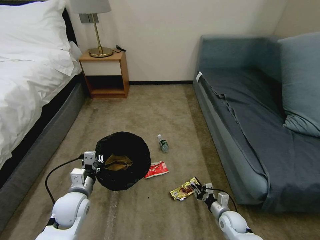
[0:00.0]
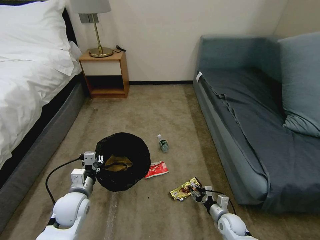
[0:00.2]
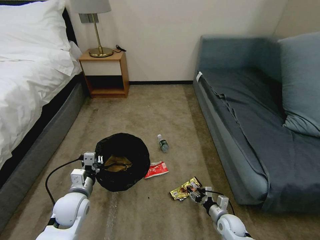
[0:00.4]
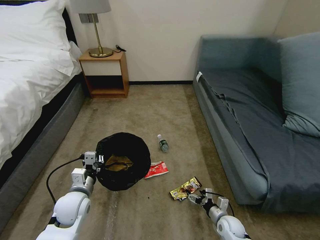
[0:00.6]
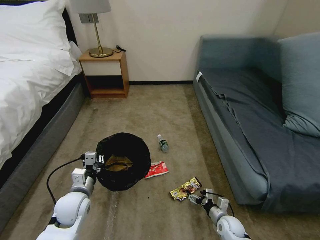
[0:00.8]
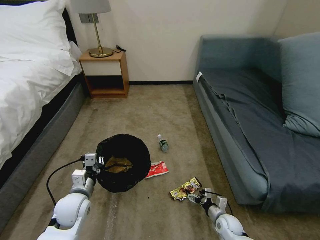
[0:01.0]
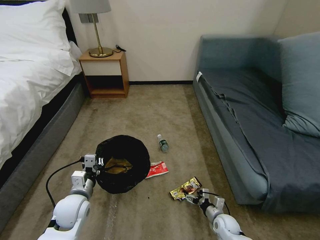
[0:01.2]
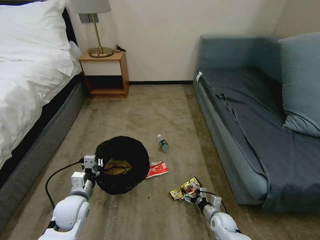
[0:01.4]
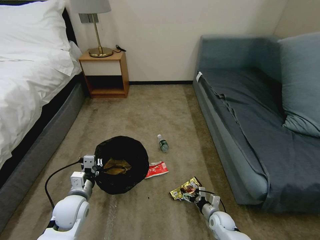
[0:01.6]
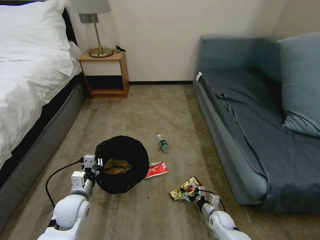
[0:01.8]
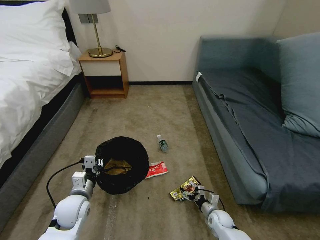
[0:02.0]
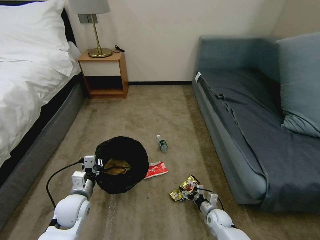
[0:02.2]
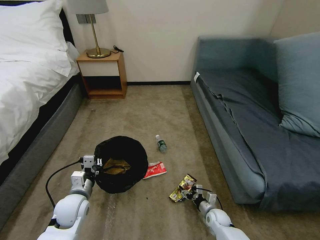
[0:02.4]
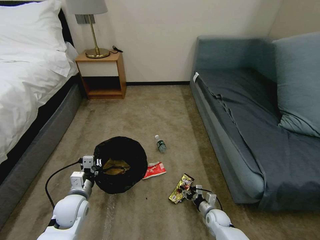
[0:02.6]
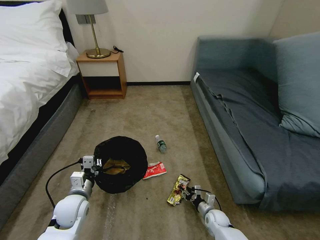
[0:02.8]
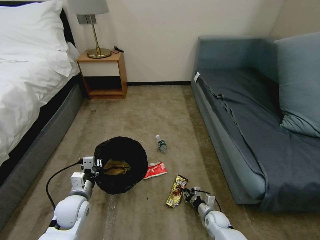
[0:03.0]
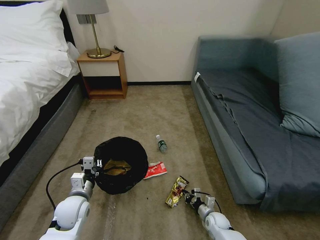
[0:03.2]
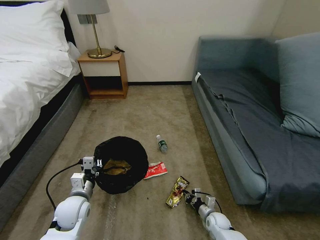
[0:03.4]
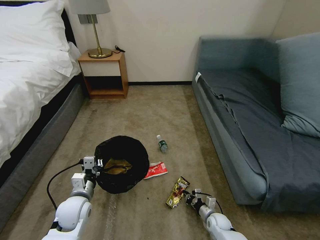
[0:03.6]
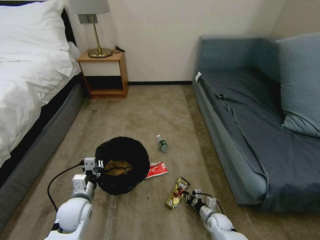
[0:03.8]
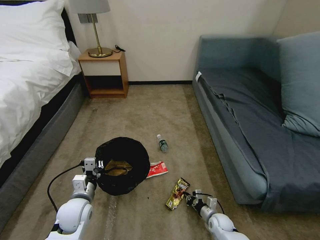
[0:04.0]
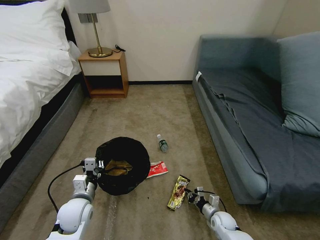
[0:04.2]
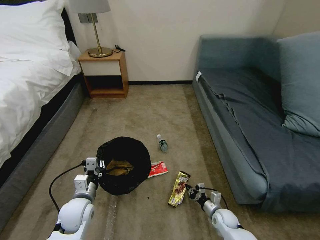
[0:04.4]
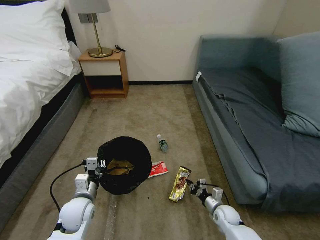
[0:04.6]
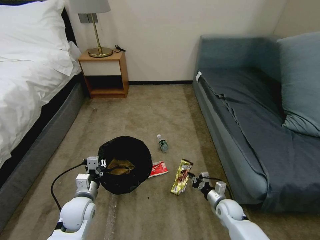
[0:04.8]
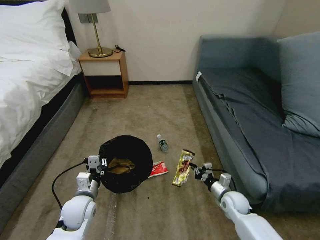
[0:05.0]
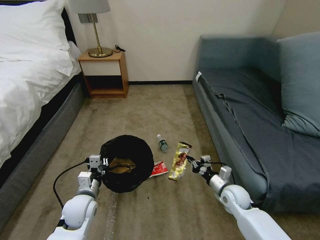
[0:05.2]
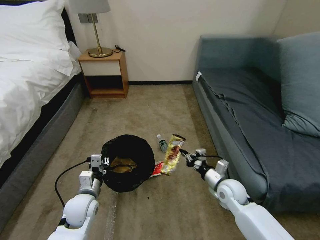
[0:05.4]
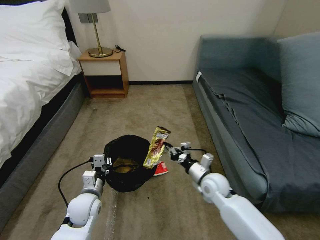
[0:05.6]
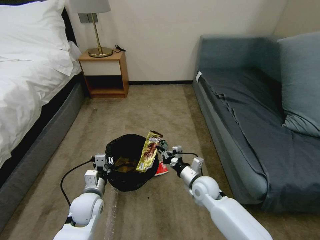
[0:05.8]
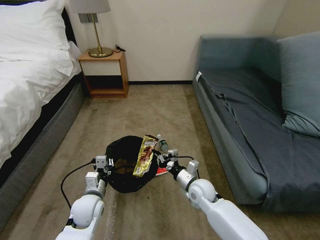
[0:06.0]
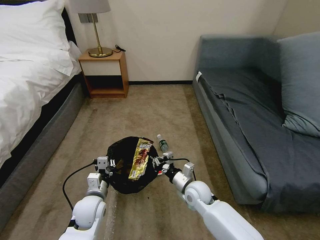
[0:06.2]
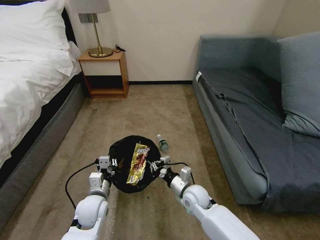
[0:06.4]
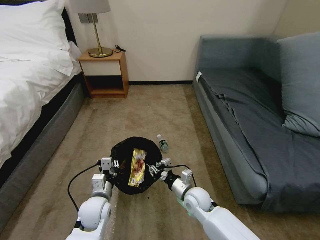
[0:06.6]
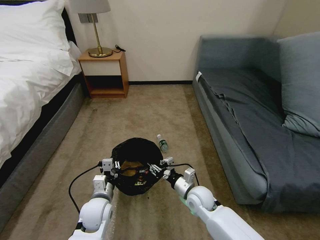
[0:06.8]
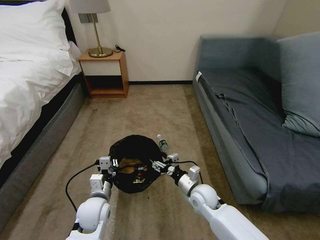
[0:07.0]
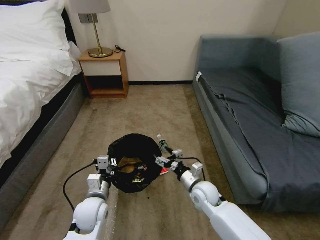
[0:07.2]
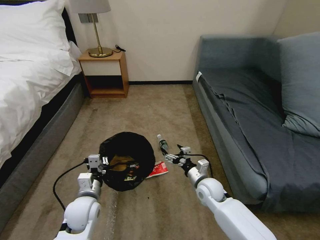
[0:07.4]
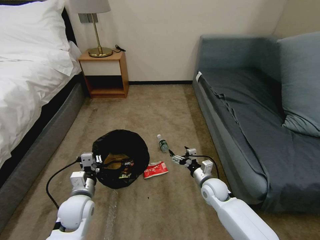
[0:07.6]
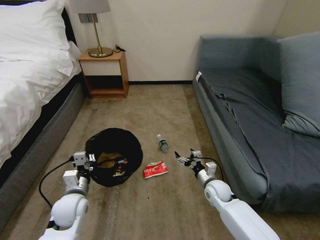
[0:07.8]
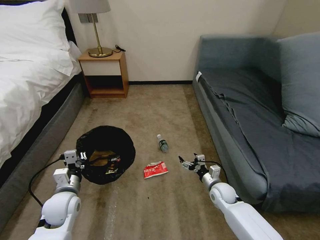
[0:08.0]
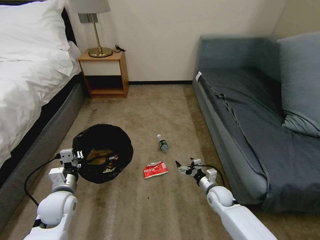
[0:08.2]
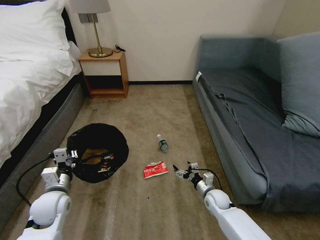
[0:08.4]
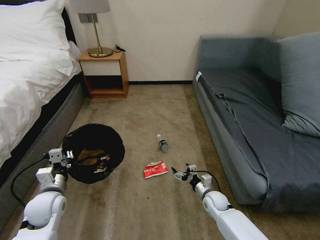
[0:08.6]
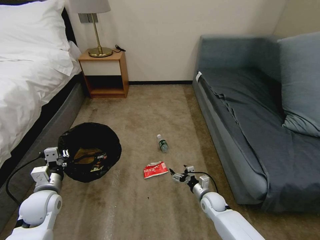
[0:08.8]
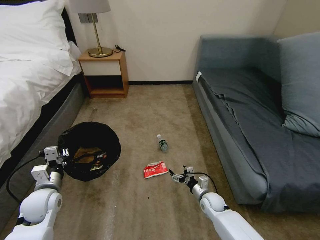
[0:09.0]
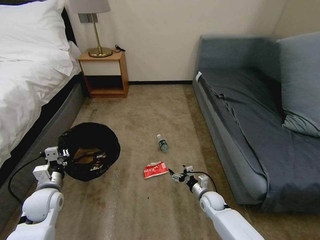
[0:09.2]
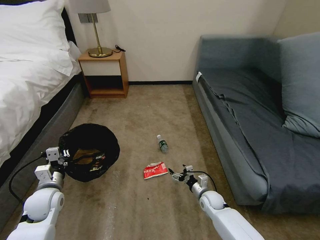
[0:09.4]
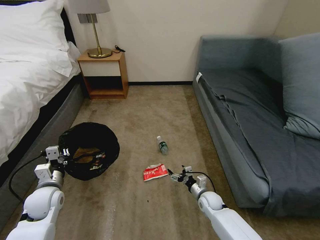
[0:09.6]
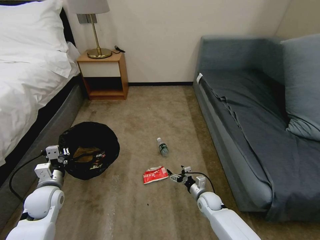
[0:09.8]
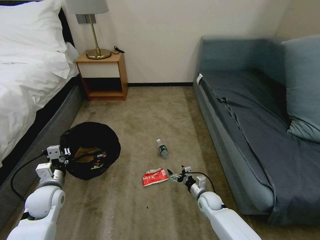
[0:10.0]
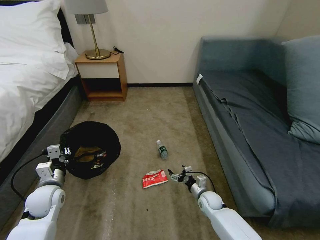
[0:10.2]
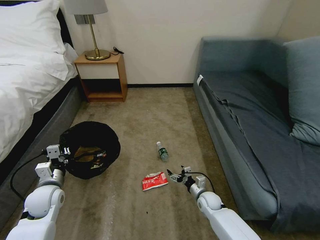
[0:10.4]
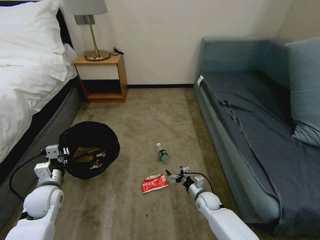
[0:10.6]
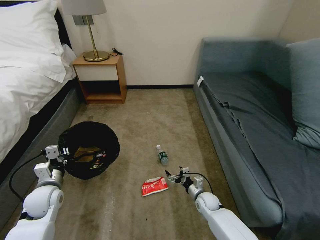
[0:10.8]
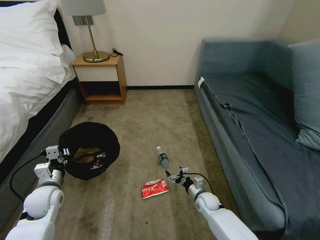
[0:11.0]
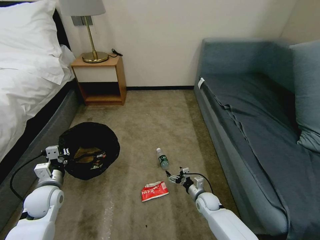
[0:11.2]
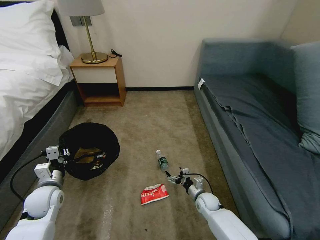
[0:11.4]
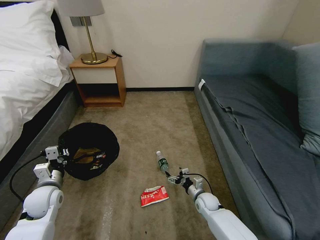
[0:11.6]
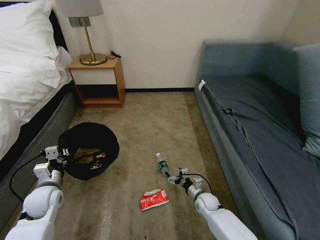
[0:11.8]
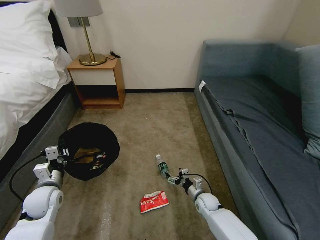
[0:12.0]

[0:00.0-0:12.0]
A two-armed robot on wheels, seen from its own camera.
Task of the whole recording: Pick up the trash bin, then pick up the garbage on the floor and place it into the trash bin.
0:00.0 to 0:01.6: The right gripper changes place by roughly 5 cm, and opens up.
0:01.6 to 0:03.0: The right gripper closes up.
0:03.0 to 0:04.4: There are only small adjustments of the grippers.
0:04.4 to 0:06.0: The right gripper goes approximately 20 cm upward and to the left.
0:06.0 to 0:07.6: The right gripper moves to the right, about 5 cm, and opens.
0:07.6 to 0:09.0: The right gripper heads downward, covering approximately 10 cm; the left gripper travels to the left by approximately 10 cm.
0:09.0 to 0:10.4: There are only small adjustments of the grippers.
0:10.4 to 0:12.0: Neither gripper changes place.

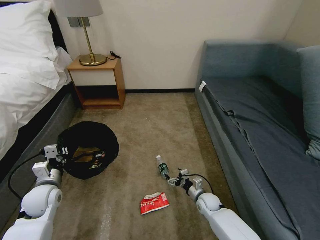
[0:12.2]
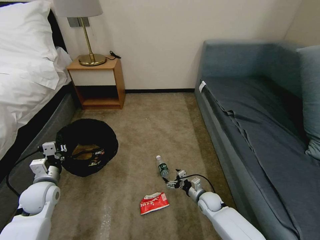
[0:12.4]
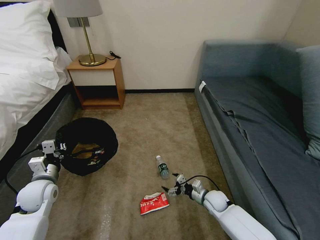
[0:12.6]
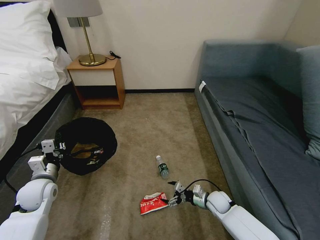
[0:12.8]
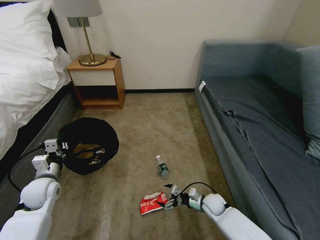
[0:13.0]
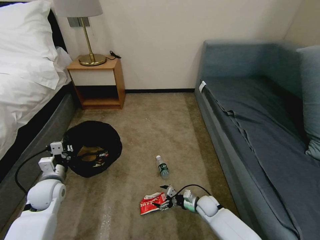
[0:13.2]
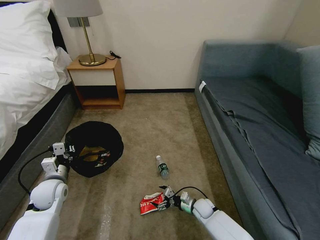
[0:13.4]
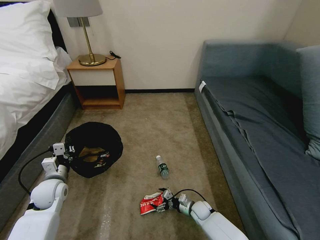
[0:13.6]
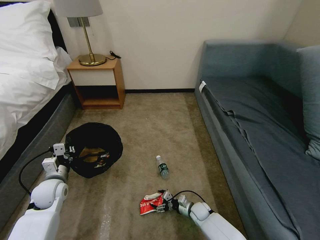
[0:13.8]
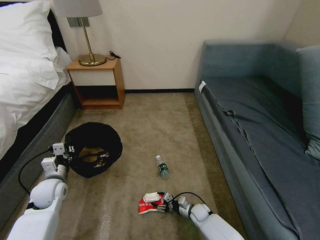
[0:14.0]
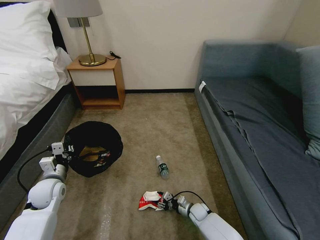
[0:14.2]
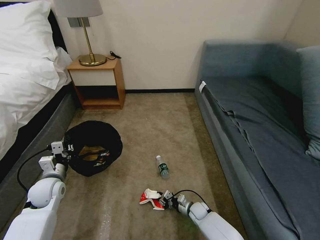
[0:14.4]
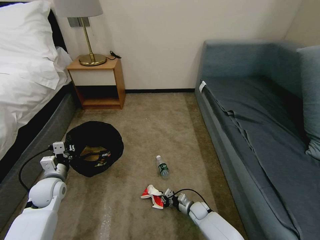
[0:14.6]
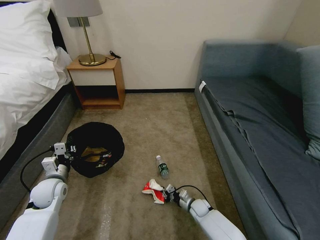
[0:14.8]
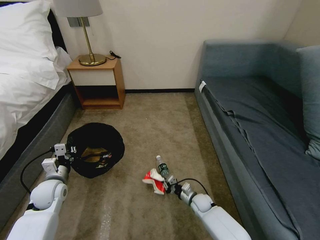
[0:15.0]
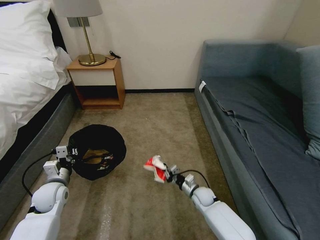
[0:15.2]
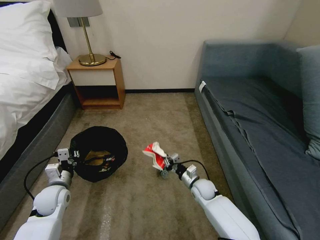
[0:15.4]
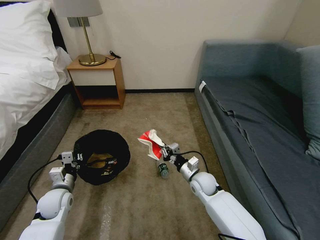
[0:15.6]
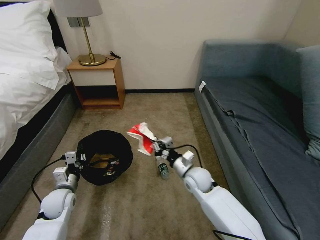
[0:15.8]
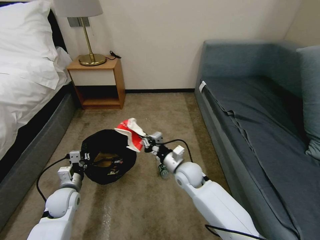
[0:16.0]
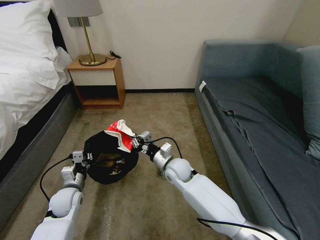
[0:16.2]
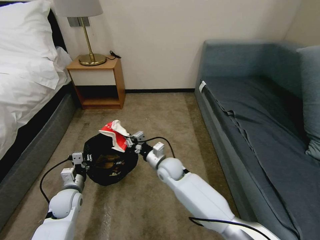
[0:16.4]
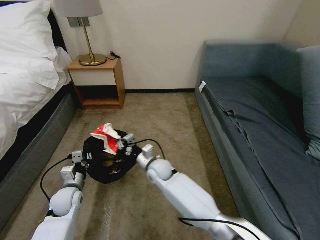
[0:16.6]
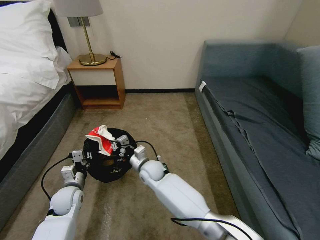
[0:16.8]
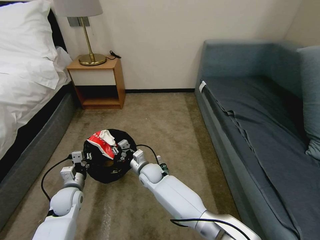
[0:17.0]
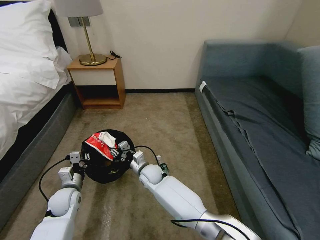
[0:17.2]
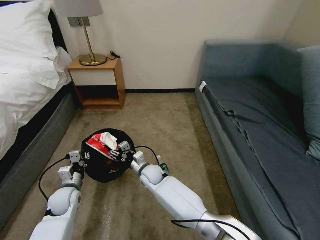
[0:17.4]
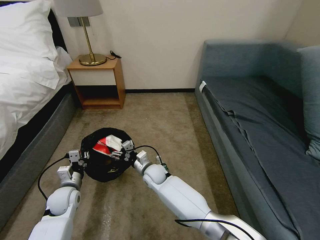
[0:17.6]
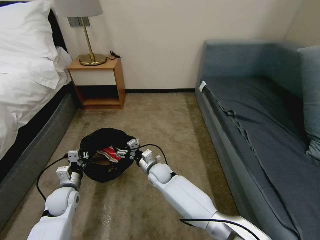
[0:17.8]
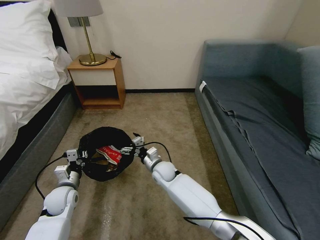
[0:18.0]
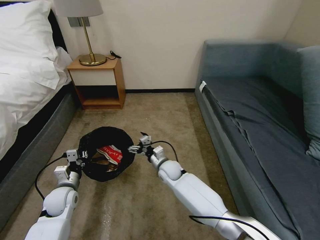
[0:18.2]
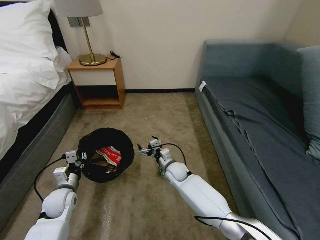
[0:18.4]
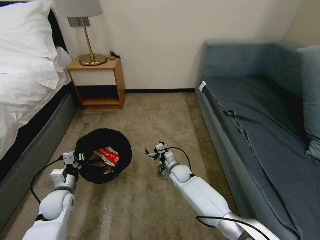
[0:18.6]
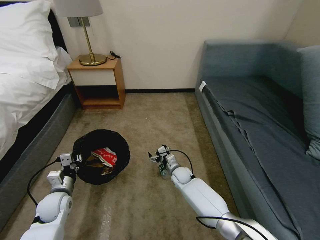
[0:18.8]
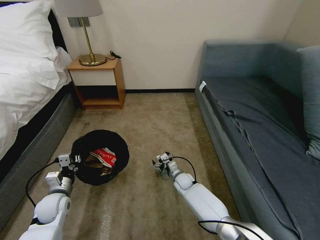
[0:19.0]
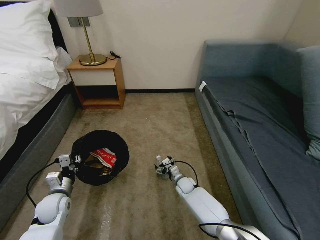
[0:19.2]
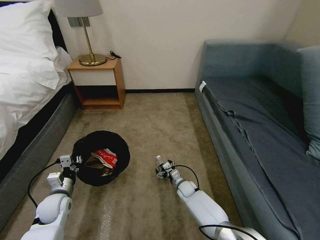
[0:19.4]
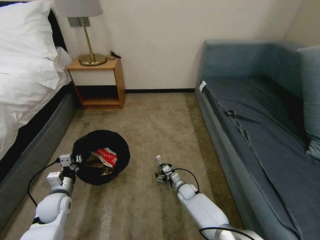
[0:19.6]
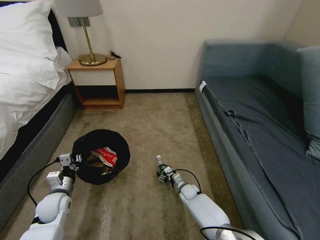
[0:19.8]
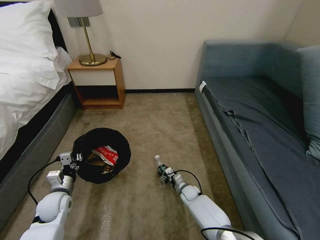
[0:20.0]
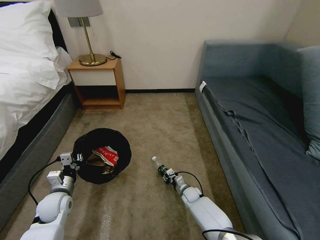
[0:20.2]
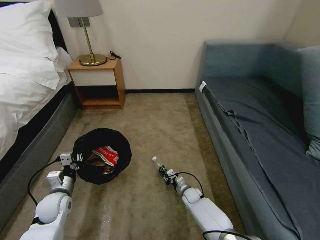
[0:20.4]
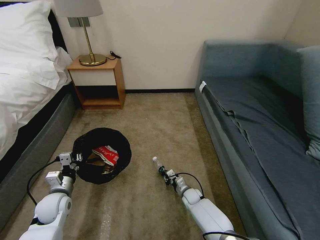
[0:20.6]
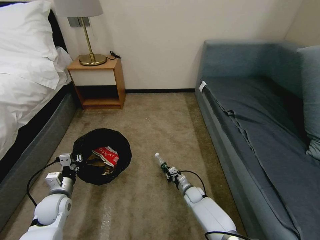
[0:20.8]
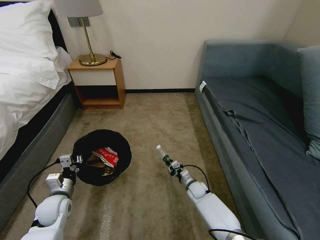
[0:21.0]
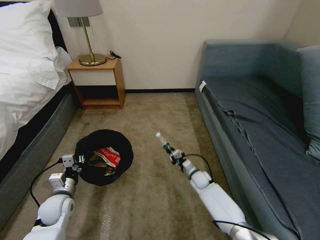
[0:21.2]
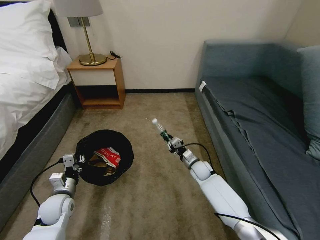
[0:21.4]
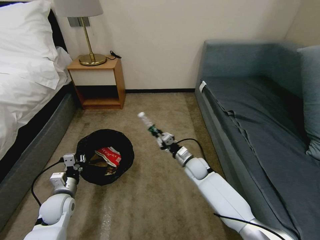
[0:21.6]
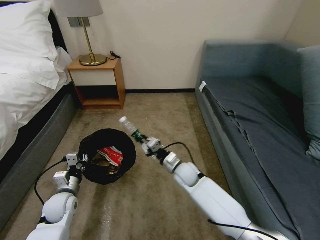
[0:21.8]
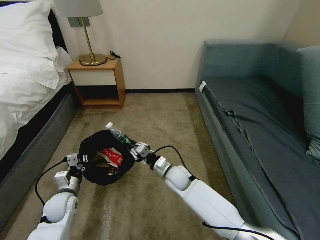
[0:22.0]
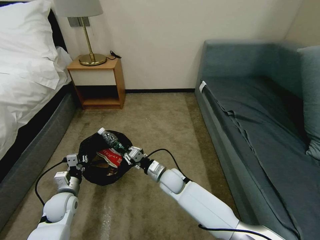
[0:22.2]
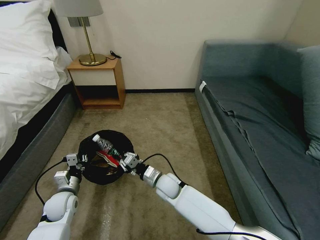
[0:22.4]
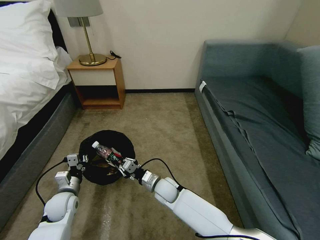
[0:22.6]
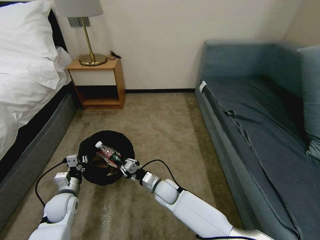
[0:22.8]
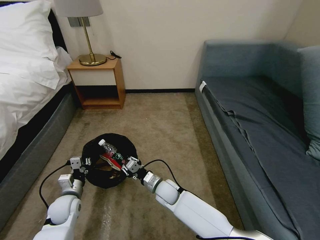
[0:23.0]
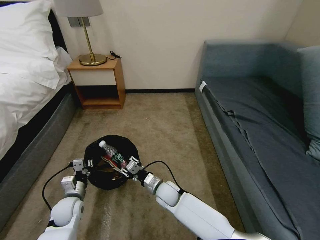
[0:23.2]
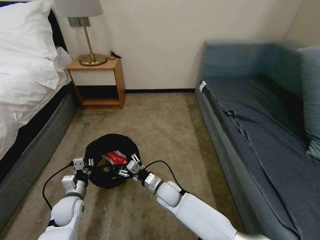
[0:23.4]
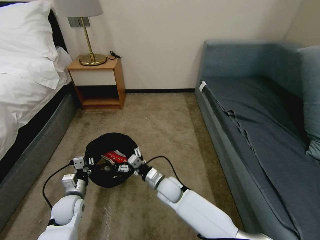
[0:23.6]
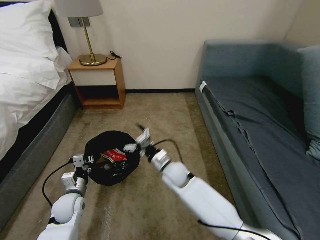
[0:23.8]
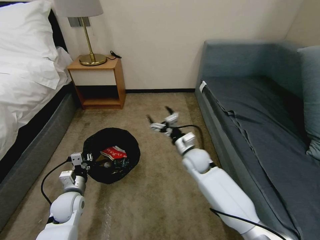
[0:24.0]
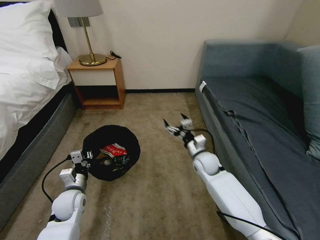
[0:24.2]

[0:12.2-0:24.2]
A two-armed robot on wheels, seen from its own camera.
Task of the whole recording: Pick up the trash bin, then pick up the garbage on the floor and place it into the trash bin.
0:12.2 to 0:13.8: The right gripper heads downward, covering roughly 5 cm.
0:13.8 to 0:15.2: The right gripper travels upward by roughly 10 cm, and closes its fingers.
0:15.2 to 0:16.6: The right gripper moves to the left and upward, about 25 cm. The left gripper changes place by roughly 5 cm.
0:16.6 to 0:18.2: The right gripper ends up about 5 cm from where it was, and opens its fingers.
0:18.2 to 0:19.8: The right gripper is displaced downward and to the right by some 20 cm.
0:19.8 to 0:21.2: The right gripper goes some 10 cm upward and to the right, and closes its fingers.
0:21.2 to 0:22.6: The right gripper is displaced to the left, backward and upward by approximately 20 cm.
0:22.6 to 0:24.2: The right gripper moves to the right, forward and upward, some 20 cm, and opens up.
